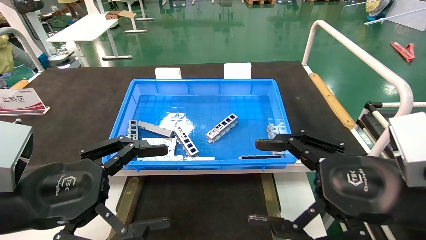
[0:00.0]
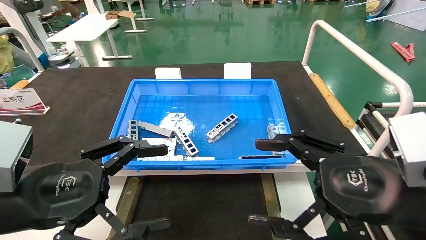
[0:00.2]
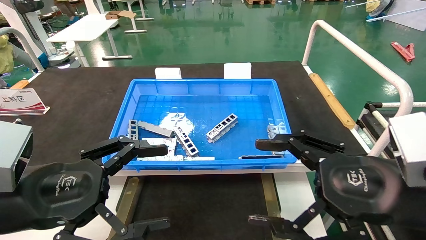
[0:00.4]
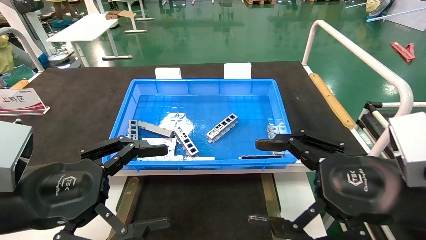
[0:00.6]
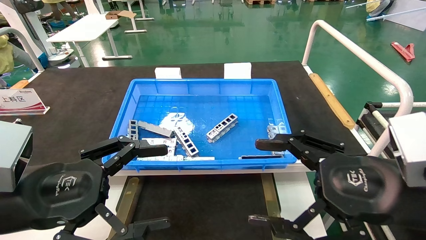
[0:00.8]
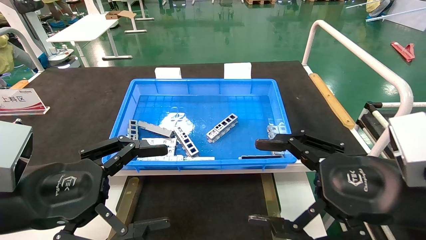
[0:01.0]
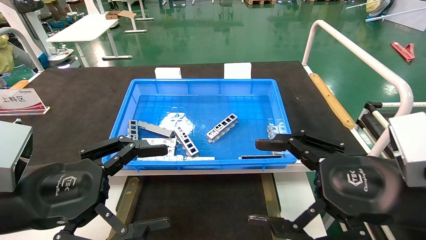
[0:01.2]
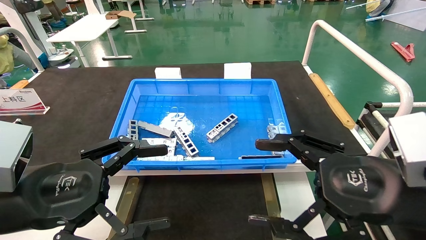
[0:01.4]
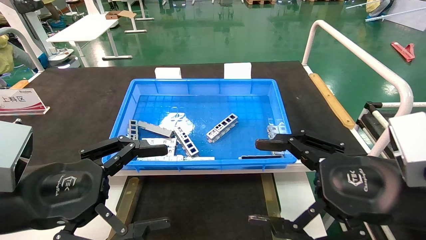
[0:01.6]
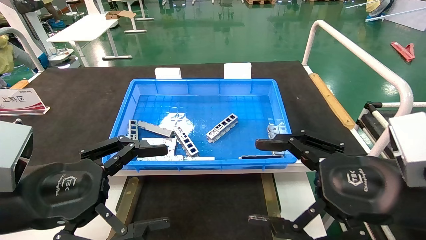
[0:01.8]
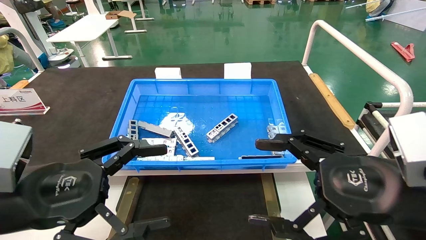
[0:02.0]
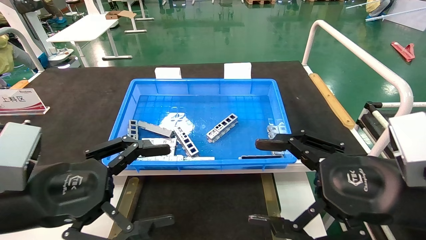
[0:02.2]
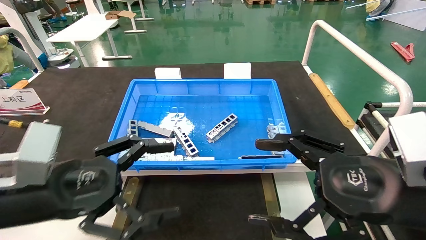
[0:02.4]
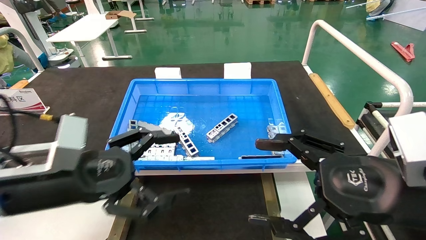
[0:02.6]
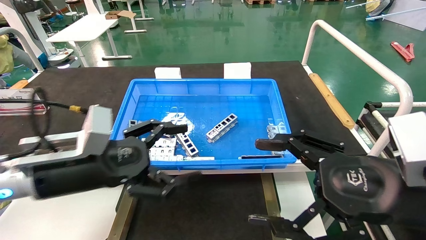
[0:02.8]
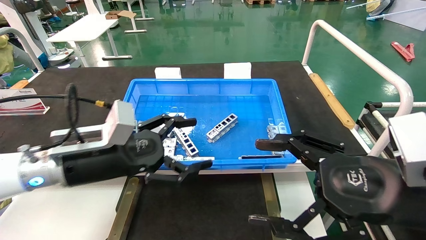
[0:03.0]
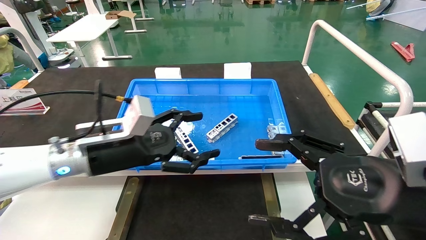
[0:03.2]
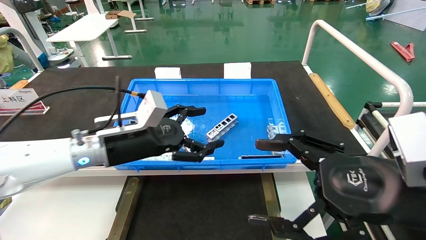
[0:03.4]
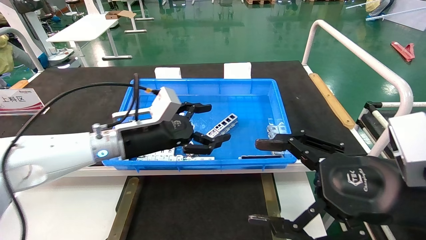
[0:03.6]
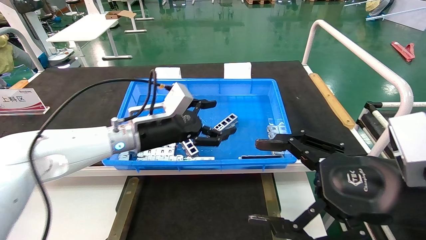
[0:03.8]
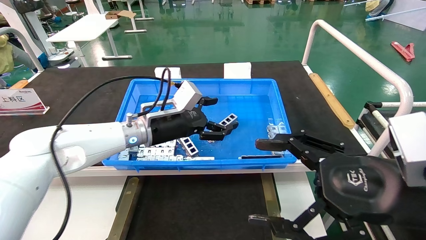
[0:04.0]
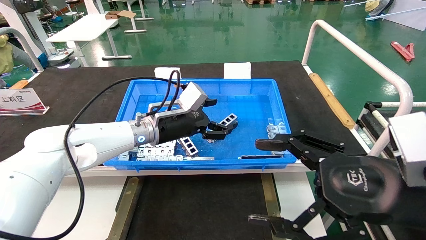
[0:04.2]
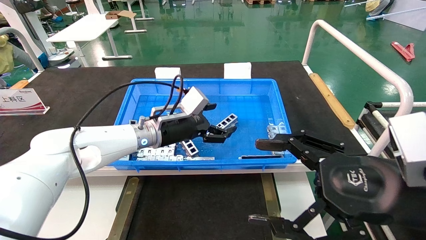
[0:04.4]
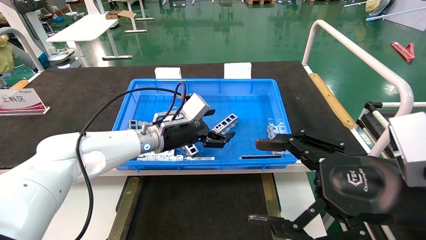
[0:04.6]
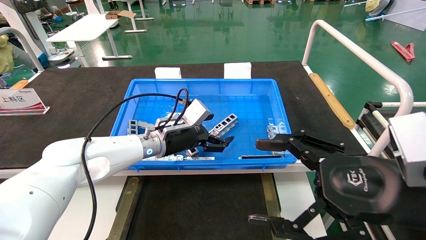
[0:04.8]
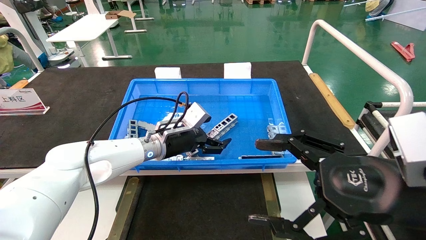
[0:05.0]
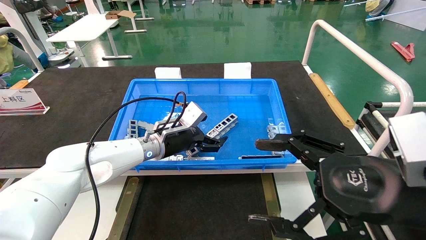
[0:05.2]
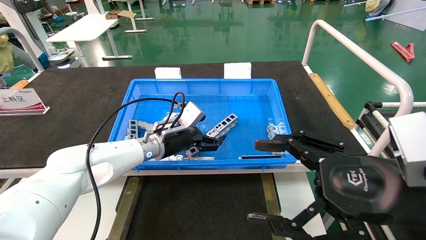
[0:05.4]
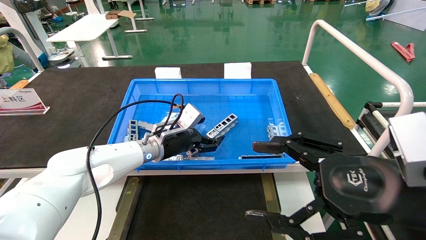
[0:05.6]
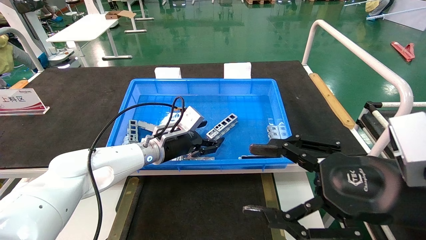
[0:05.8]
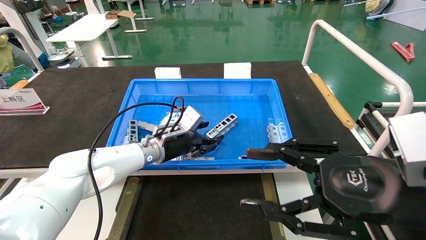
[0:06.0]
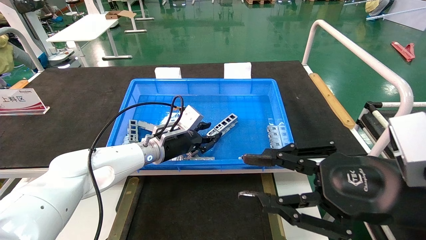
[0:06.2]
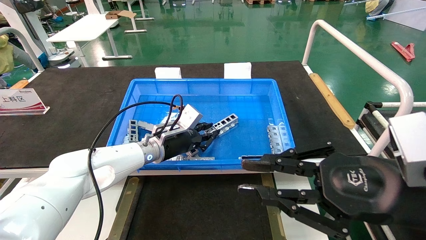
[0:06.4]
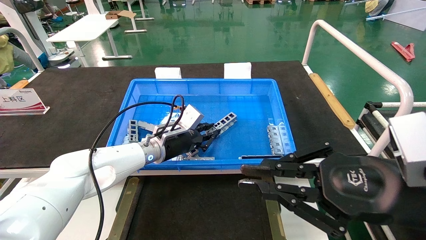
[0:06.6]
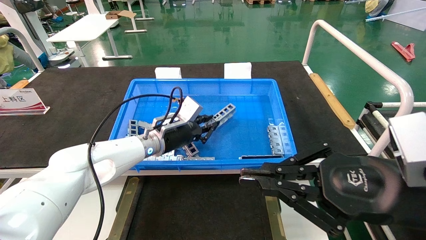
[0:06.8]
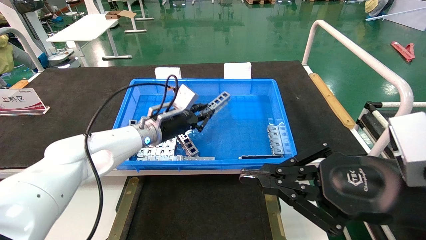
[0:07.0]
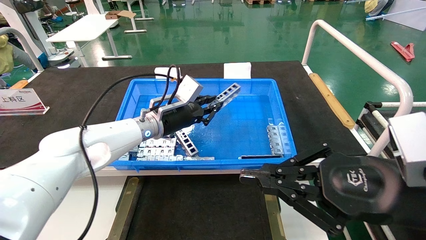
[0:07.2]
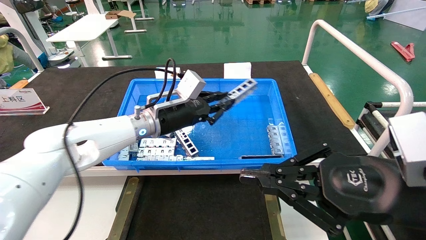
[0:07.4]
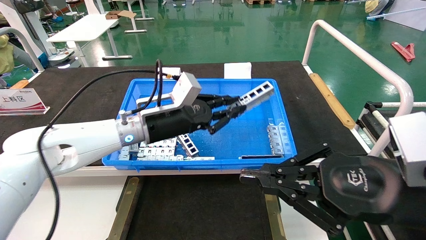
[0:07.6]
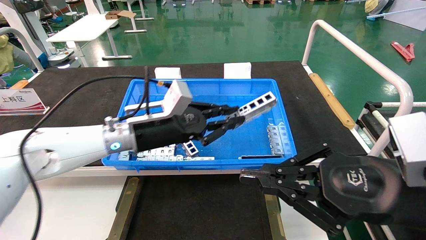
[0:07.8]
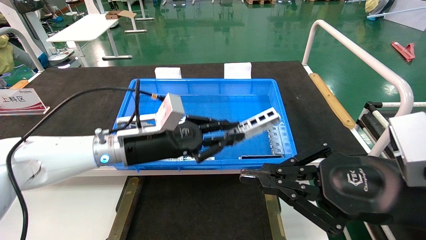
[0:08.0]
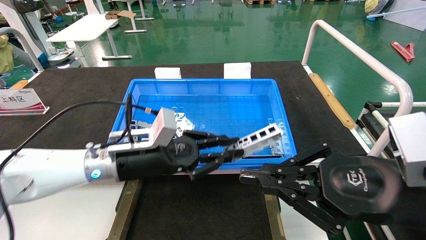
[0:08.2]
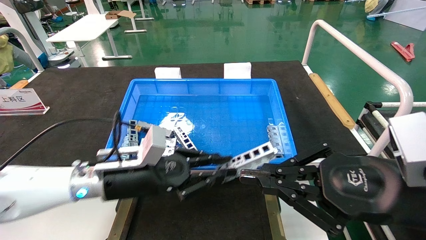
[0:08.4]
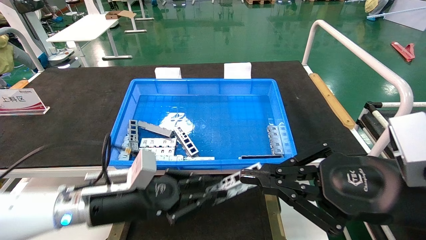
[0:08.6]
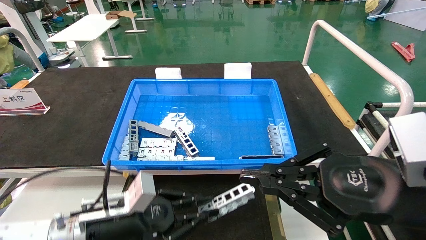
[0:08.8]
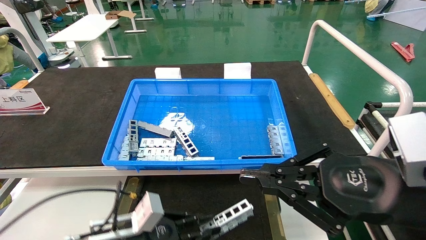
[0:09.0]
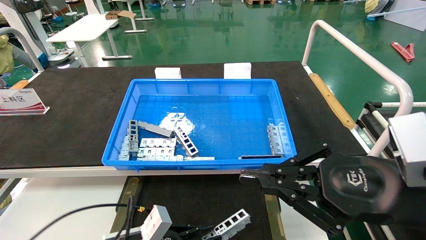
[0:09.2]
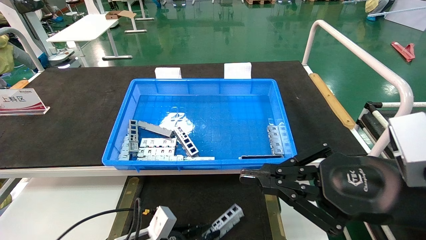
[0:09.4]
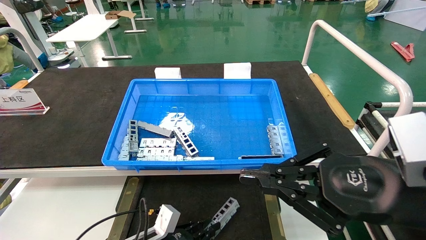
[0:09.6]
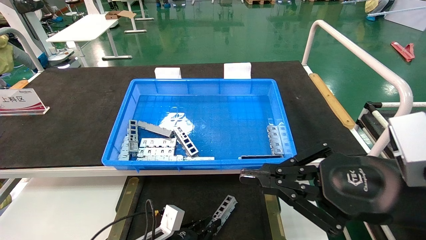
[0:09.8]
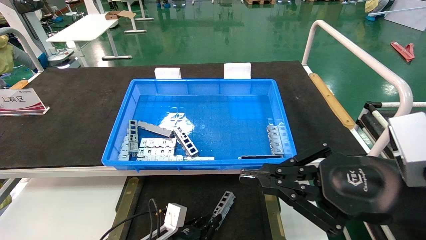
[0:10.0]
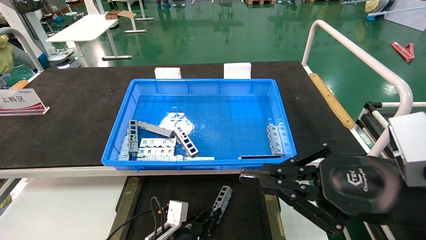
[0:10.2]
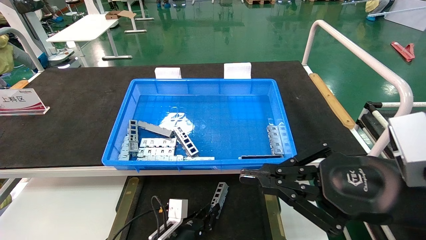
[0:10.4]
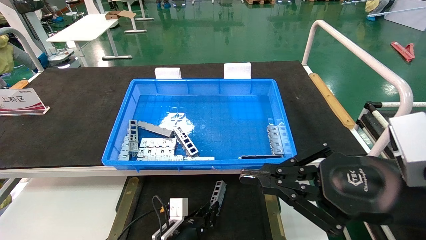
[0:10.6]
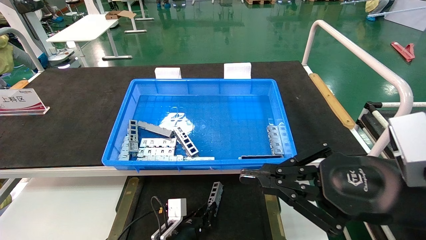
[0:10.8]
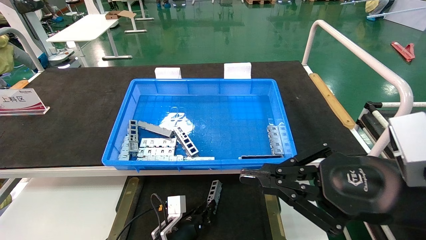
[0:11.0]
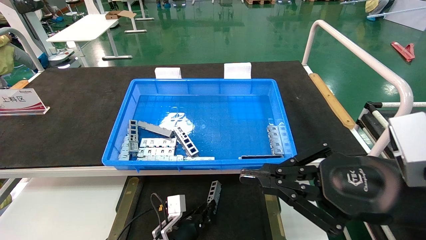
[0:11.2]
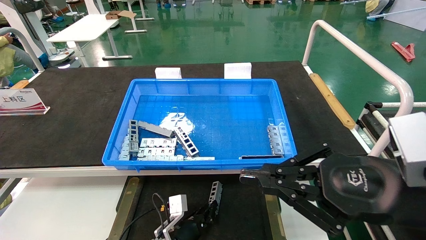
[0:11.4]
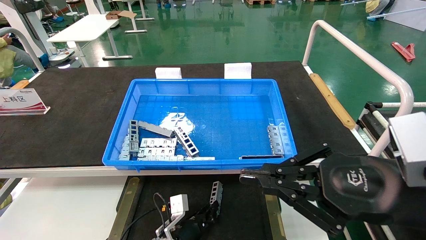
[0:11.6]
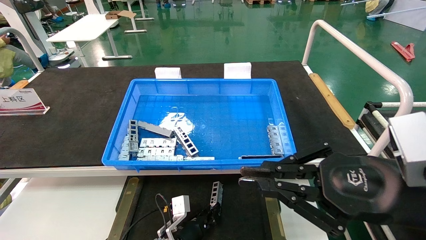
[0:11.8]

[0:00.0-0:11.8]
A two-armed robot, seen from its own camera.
Task of the whole recording: Grasp the part with one hand and place it on the black container.
Step, 0:02.2 to 0:07.0: Pick up the front USB bracket from the feeding area.
0:00.0 to 0:01.4: Both grippers stay put.
0:01.4 to 0:03.0: The left gripper goes approximately 10 cm forward.
0:03.0 to 0:04.4: The left gripper moves forward and to the right, some 20 cm.
0:04.4 to 0:06.0: The left gripper changes place by about 5 cm, and closes up.
0:06.0 to 0:07.4: The left gripper goes approximately 10 cm upward, and closes; the right gripper closes its fingers.
0:07.4 to 0:08.8: The left gripper goes some 25 cm backward, downward and to the left.
0:08.8 to 0:10.4: The left gripper shifts approximately 20 cm downward, to the right and forward.
0:10.4 to 0:11.8: The grippers stay close to where they were, moving slightly.

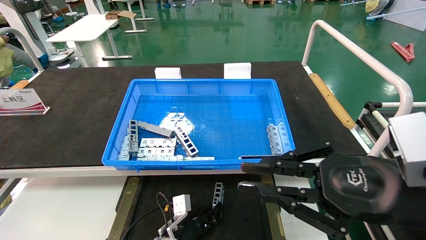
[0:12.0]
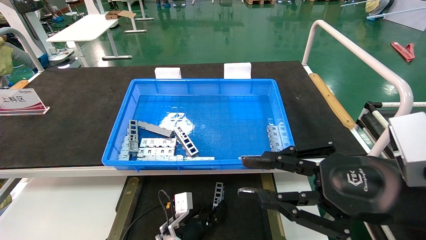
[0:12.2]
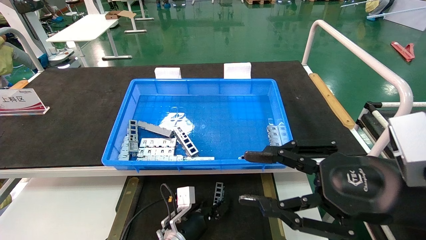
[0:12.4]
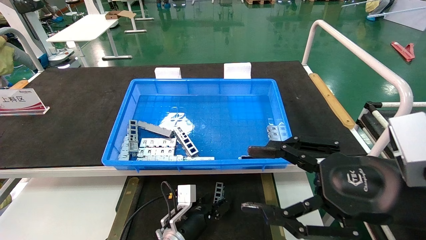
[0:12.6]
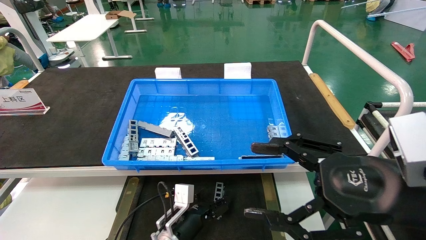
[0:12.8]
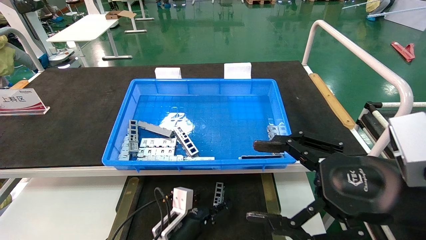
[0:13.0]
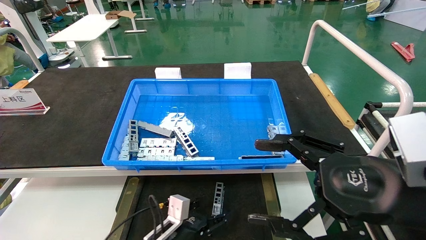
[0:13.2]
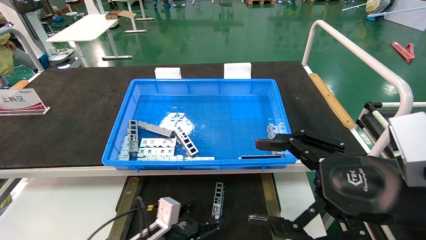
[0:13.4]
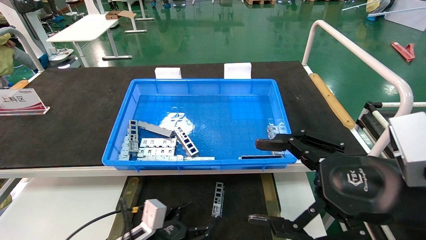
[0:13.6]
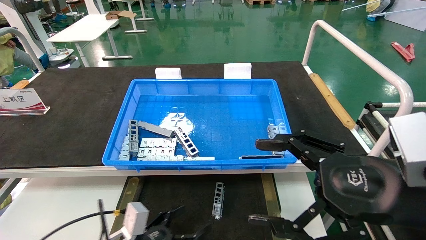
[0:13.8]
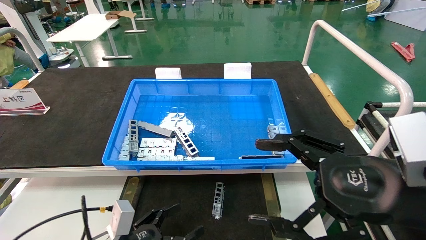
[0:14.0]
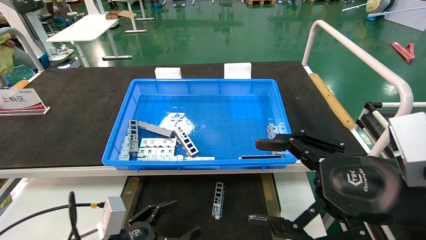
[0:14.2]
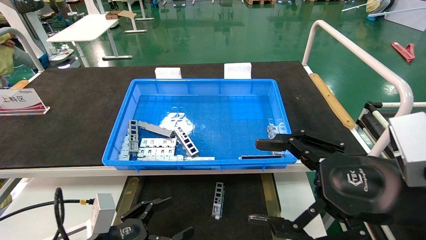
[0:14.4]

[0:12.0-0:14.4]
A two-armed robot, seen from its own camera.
Task of the whole recording: Grasp the part with one hand and place it on the black container.
0:12.0 to 0:13.2: The right gripper opens up; the left gripper is displaced backward by about 5 cm, and opens up.
0:13.2 to 0:14.4: The left gripper shifts approximately 20 cm to the left, backward and upward.

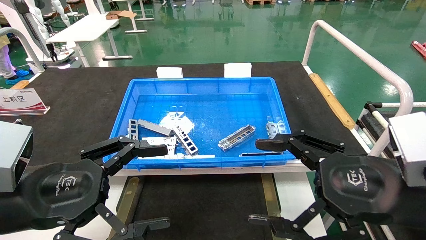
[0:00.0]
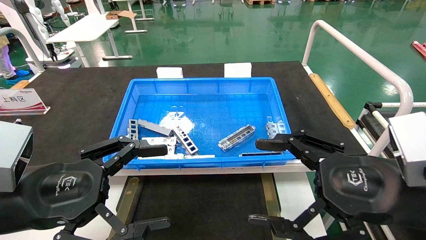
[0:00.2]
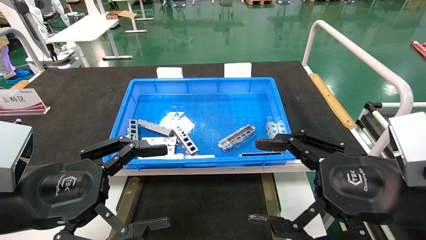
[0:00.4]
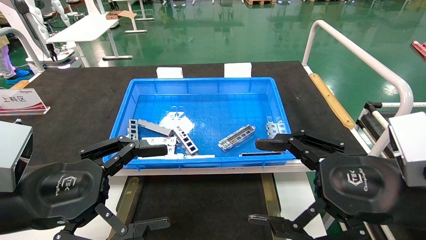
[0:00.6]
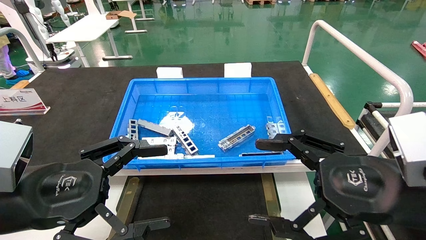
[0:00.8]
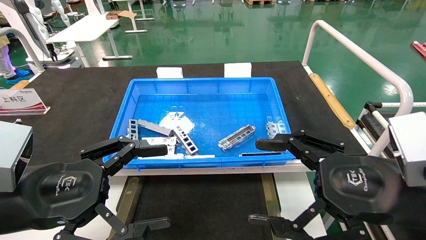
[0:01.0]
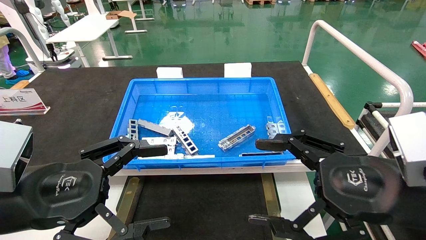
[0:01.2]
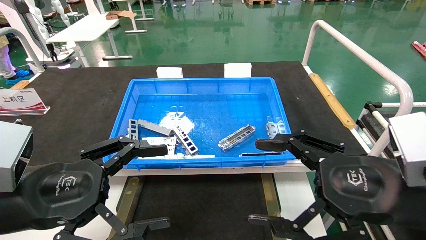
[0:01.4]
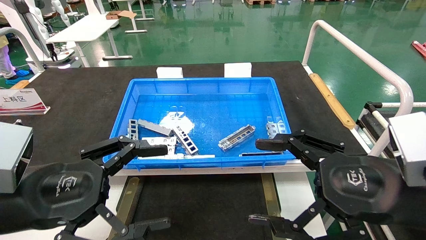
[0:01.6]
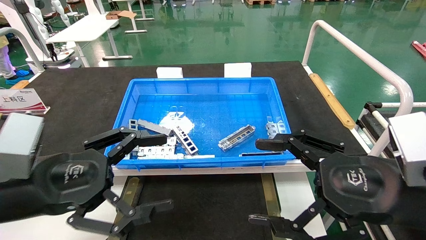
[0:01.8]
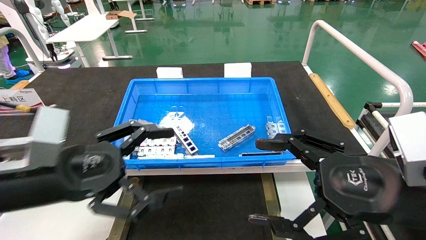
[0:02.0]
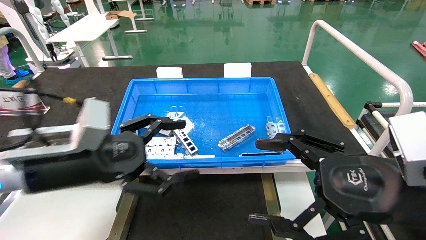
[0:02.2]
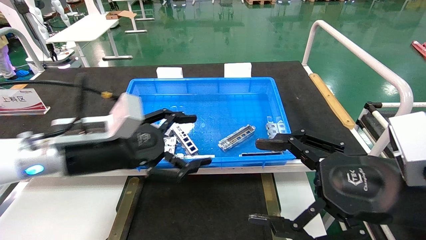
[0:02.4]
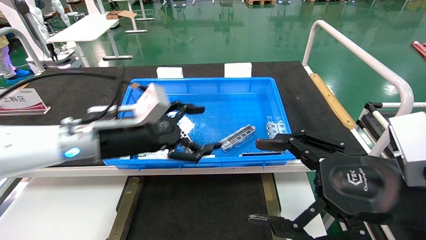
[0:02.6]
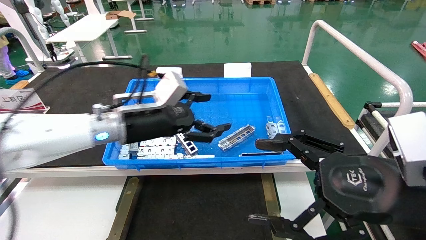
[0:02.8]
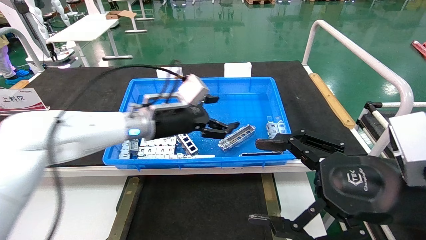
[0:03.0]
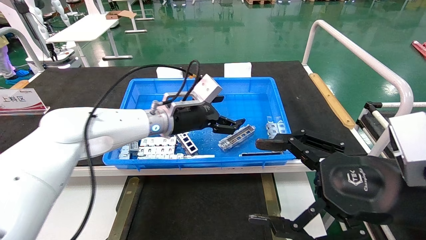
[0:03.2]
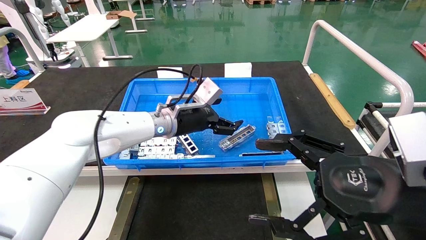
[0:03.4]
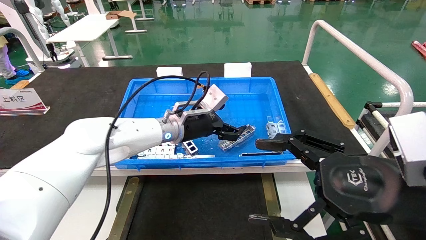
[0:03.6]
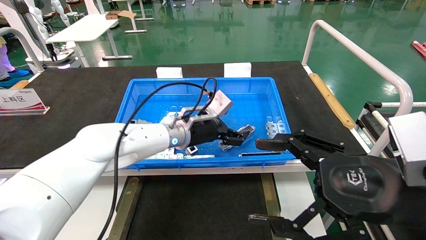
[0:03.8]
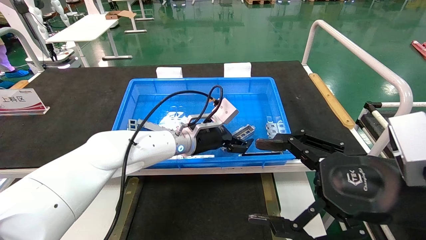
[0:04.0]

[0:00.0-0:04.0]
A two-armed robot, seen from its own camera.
Task of the whole recording: Grasp the part with one hand and place it on the black container.
0:00.0 to 0:01.4: Both grippers stay put.
0:01.4 to 0:02.6: The left gripper moves forward and to the right, approximately 15 cm.
0:02.6 to 0:04.0: The left gripper travels to the right, forward and downward by roughly 20 cm.
